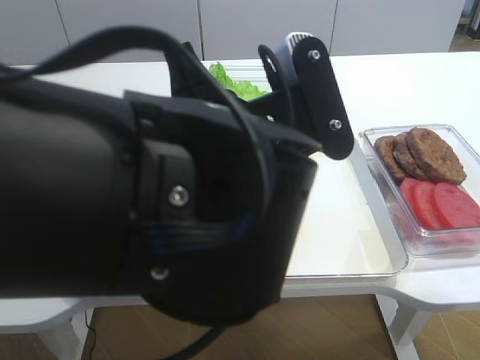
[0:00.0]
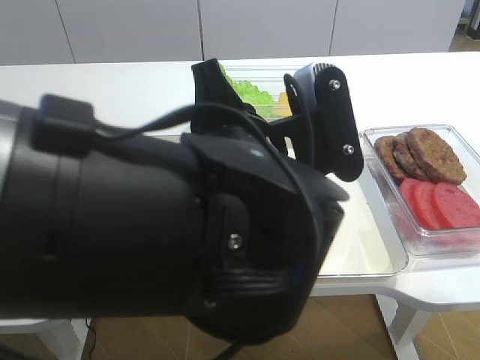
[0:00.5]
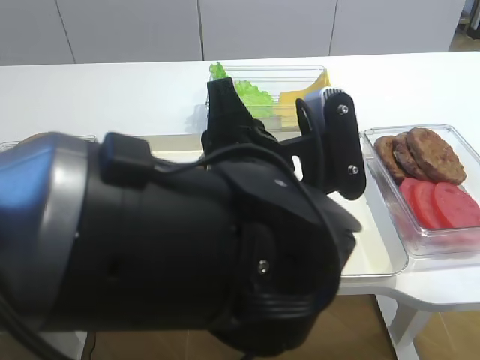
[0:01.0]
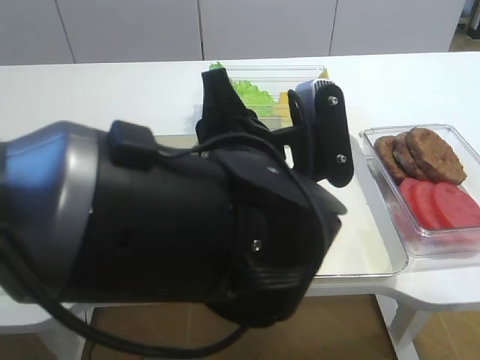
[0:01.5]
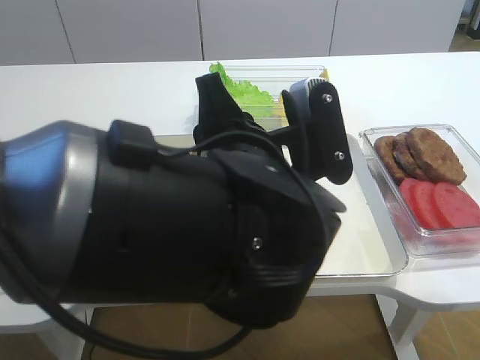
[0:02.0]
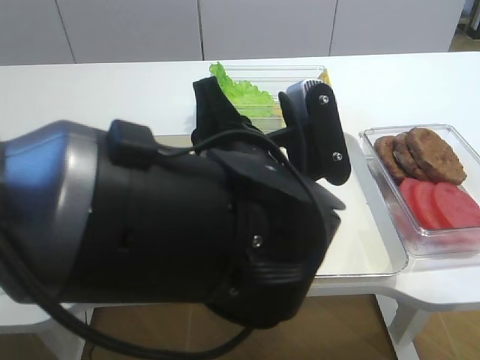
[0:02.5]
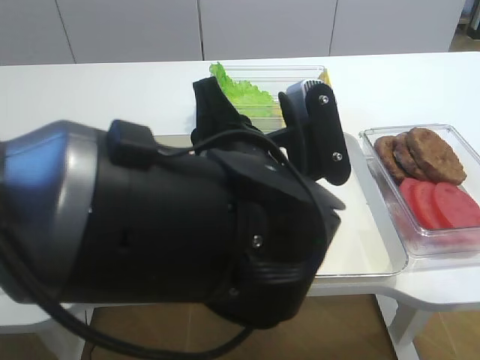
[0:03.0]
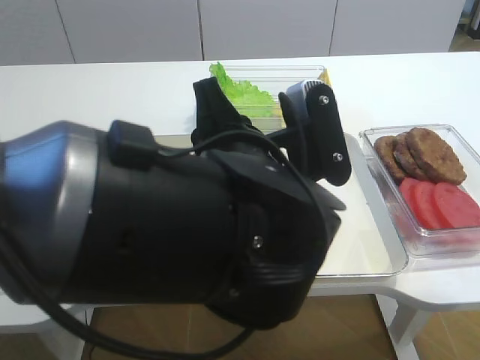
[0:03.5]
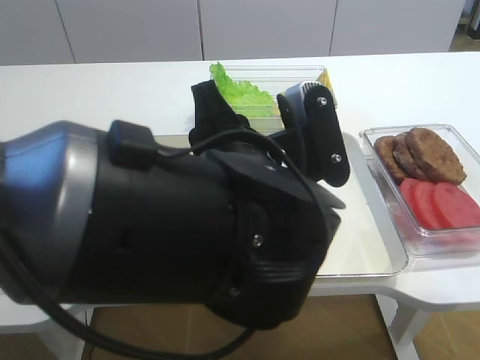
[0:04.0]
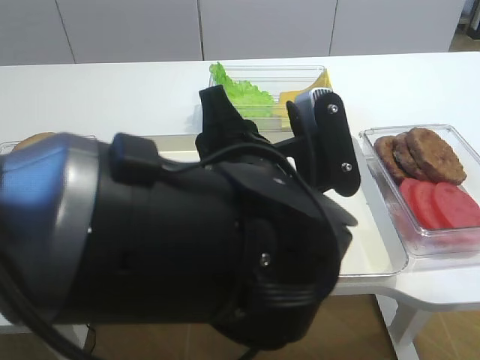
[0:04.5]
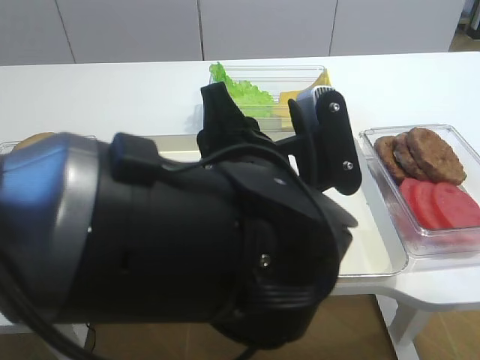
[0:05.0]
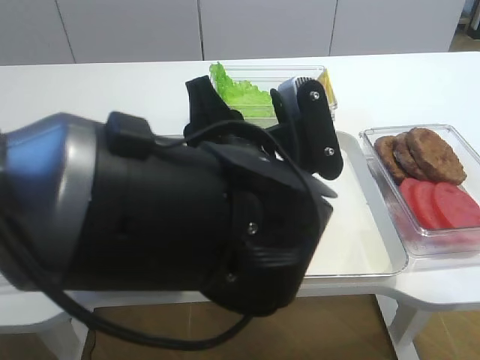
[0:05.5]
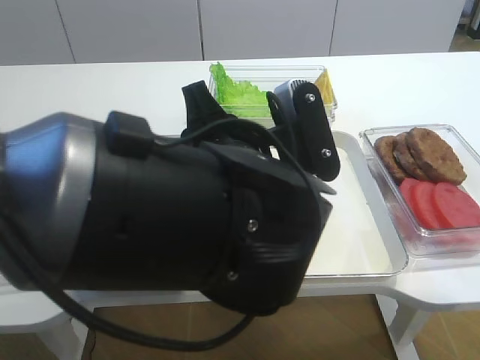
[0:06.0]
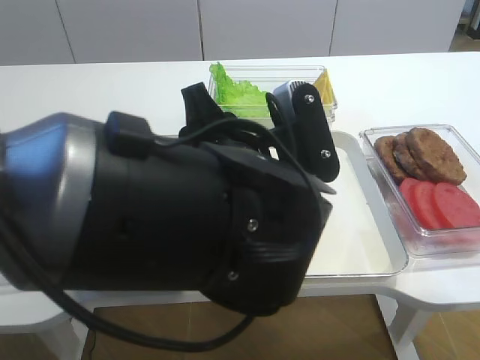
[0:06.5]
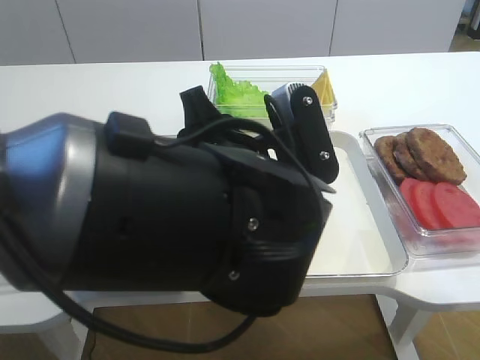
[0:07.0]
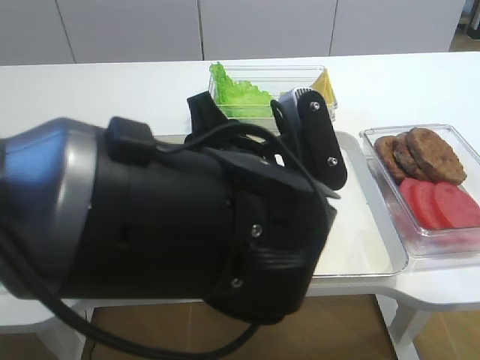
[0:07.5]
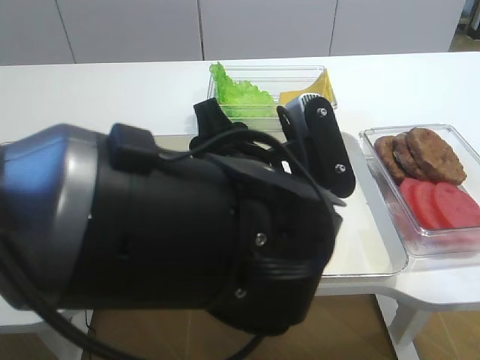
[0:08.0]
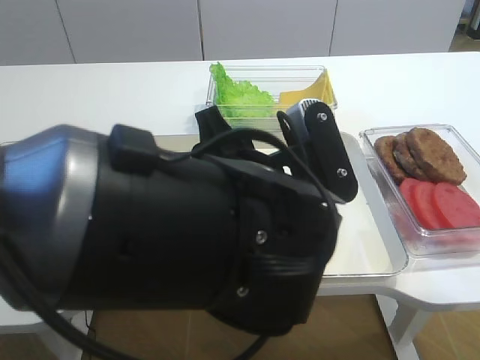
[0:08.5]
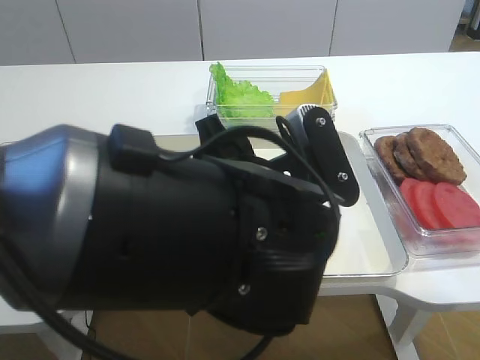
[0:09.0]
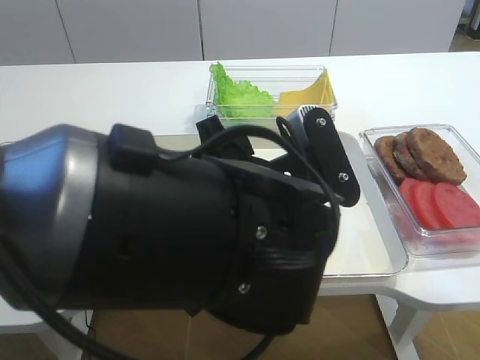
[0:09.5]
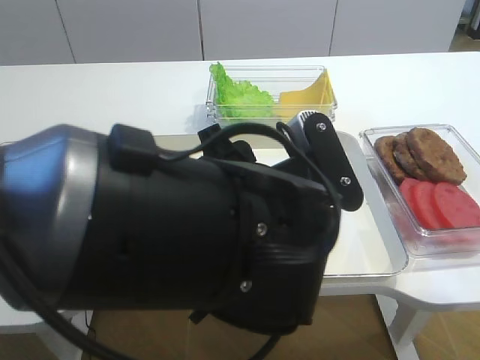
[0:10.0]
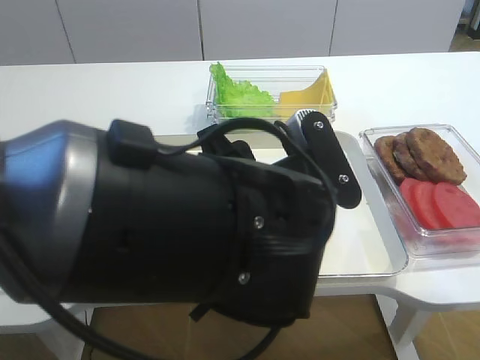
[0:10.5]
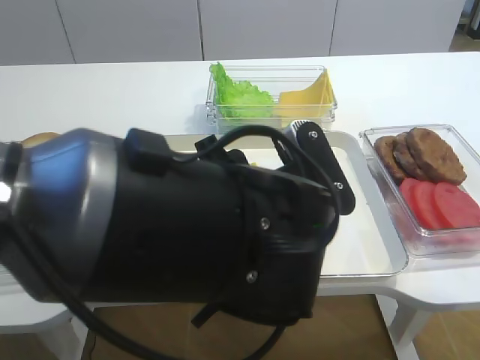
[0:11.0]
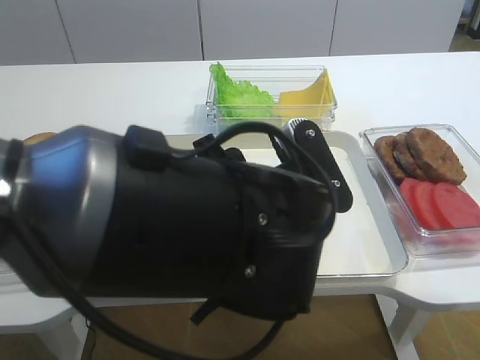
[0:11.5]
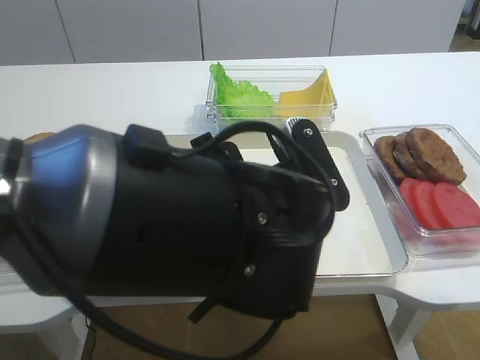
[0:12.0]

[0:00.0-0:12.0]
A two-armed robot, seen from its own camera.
0:02.0 to 0:06.0: Both grippers stay put.
0:06.0 to 0:08.0: The two grippers keep their place.
0:08.0 to 0:10.0: The grippers stay close to where they were, moving slightly.
0:10.0 to 0:12.0: The two grippers keep their place.

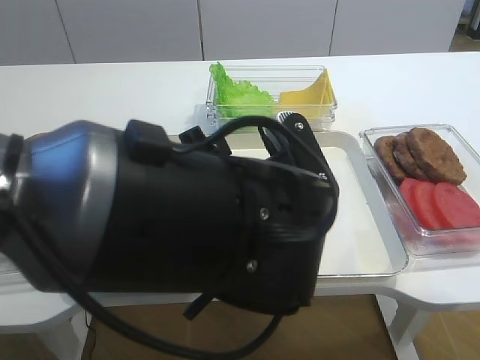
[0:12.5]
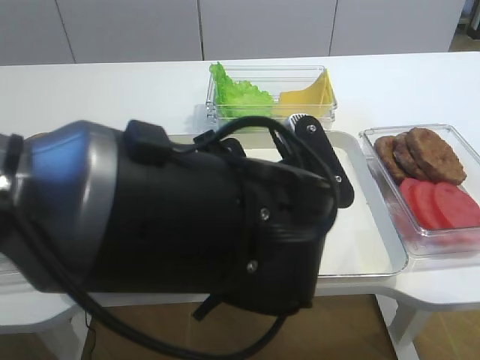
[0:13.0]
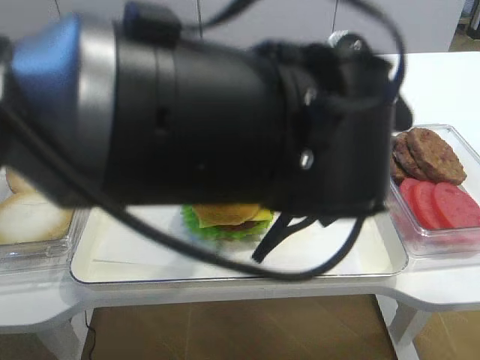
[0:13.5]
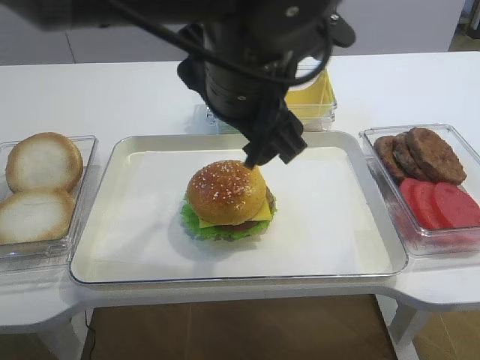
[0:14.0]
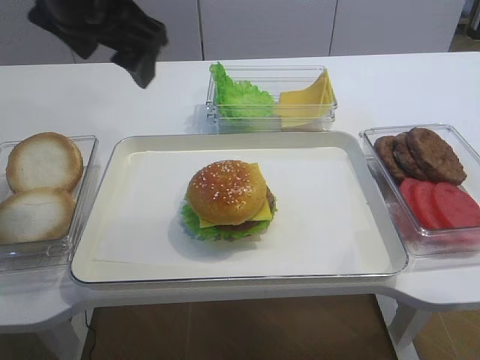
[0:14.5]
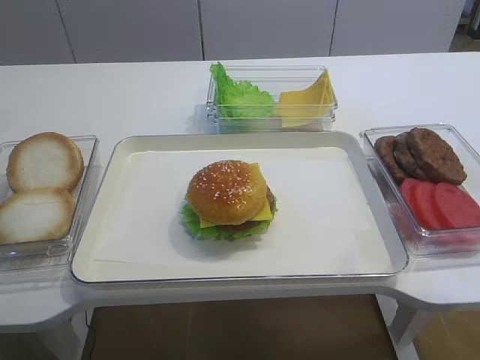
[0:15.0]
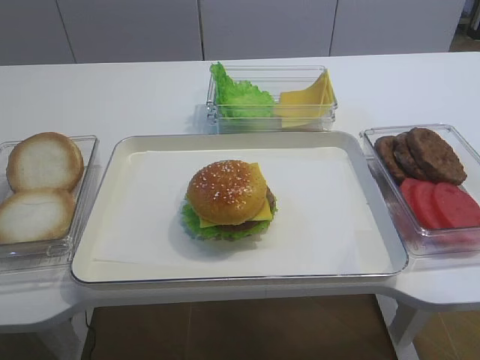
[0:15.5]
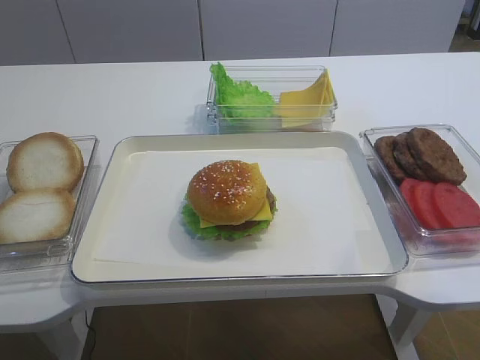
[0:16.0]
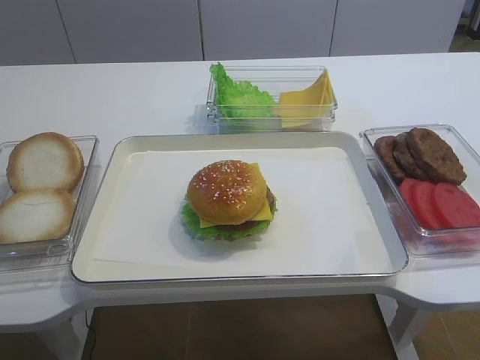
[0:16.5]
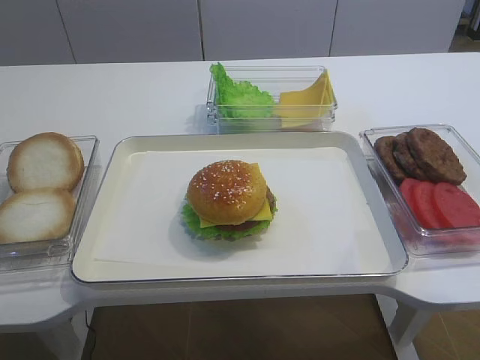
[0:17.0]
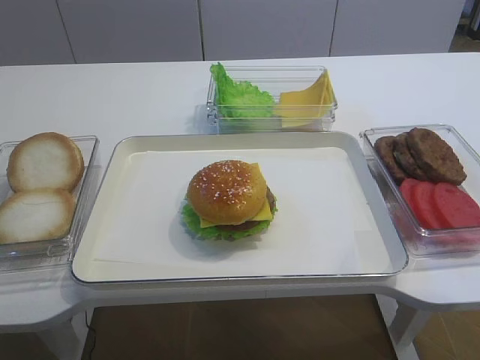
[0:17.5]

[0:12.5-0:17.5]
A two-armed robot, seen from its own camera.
0:12.5 to 0:15.0: The left gripper goes approximately 35 cm to the left and upward.

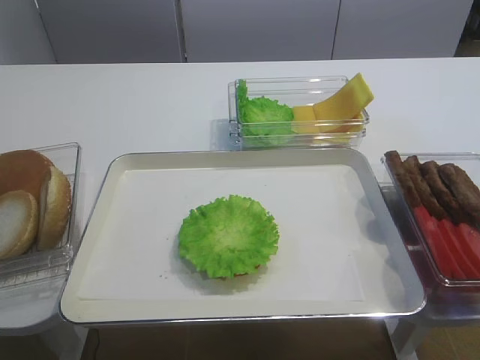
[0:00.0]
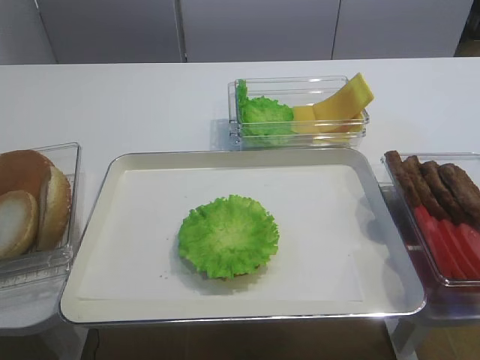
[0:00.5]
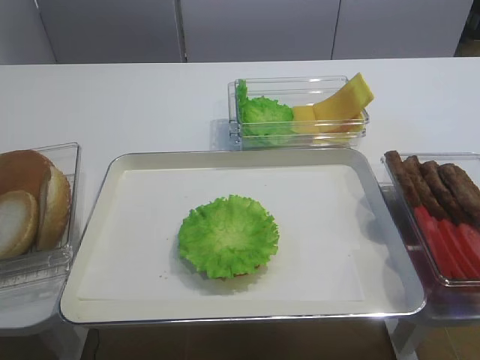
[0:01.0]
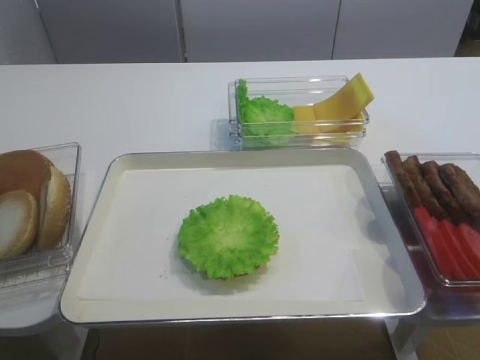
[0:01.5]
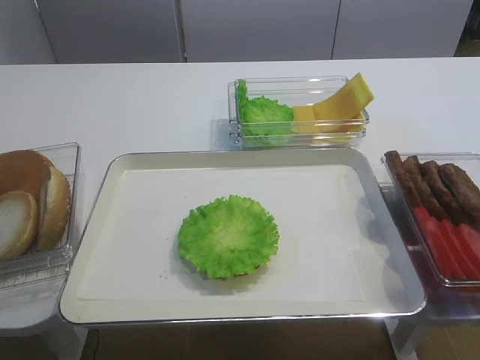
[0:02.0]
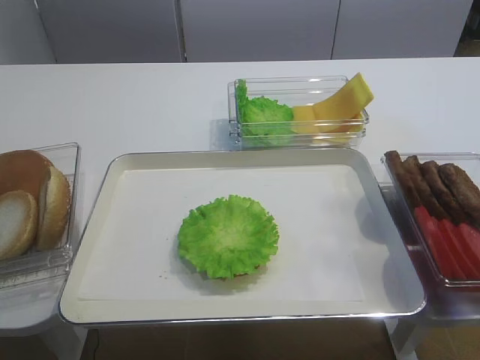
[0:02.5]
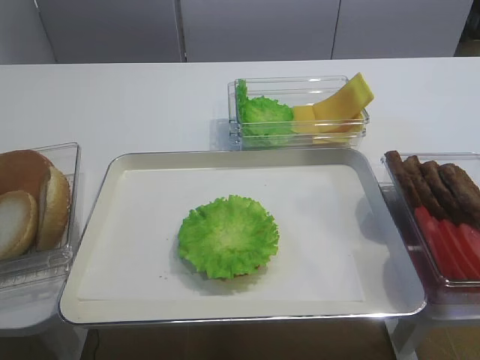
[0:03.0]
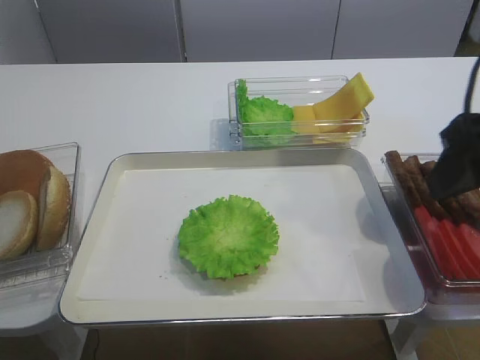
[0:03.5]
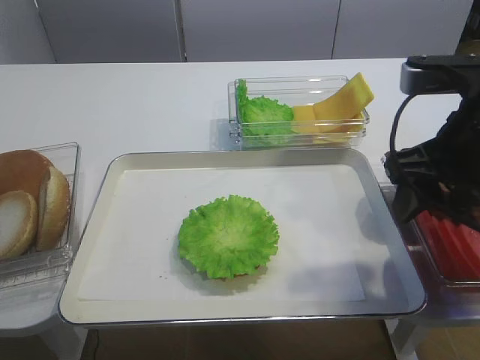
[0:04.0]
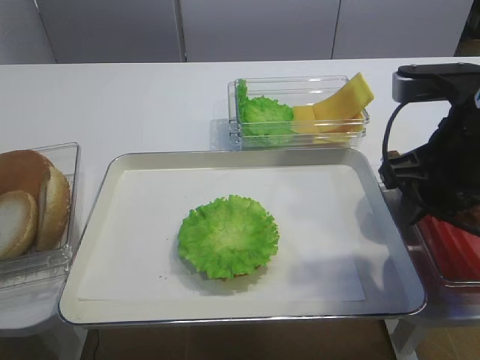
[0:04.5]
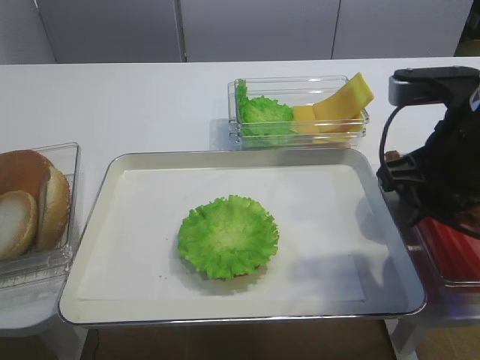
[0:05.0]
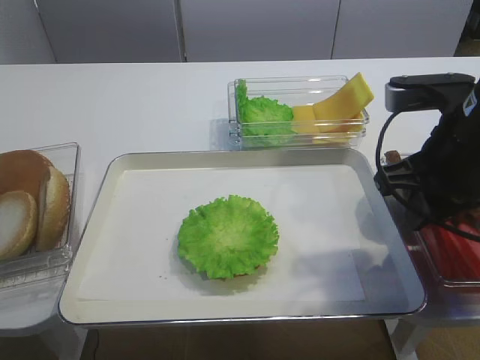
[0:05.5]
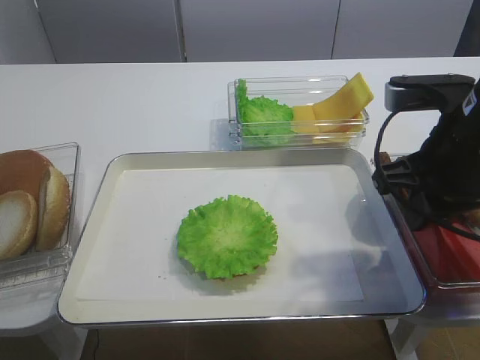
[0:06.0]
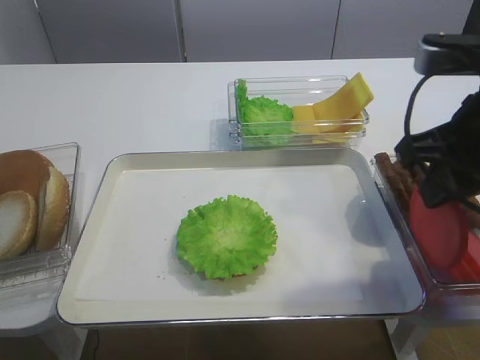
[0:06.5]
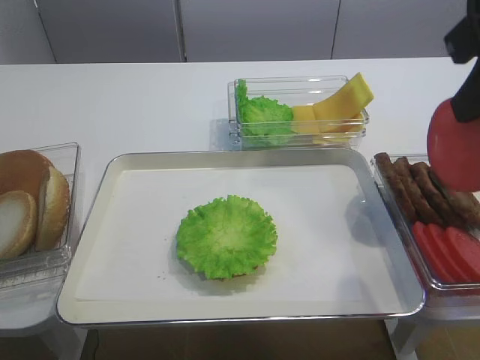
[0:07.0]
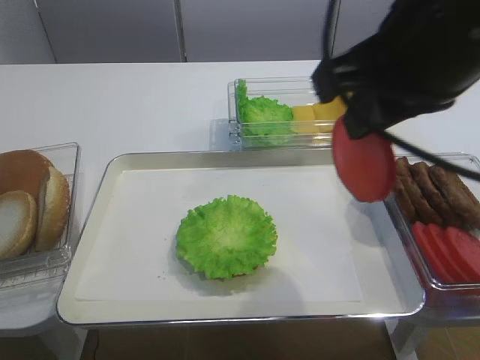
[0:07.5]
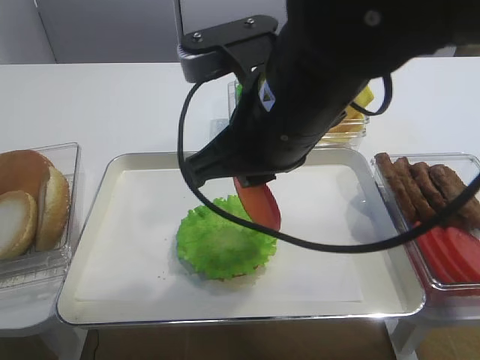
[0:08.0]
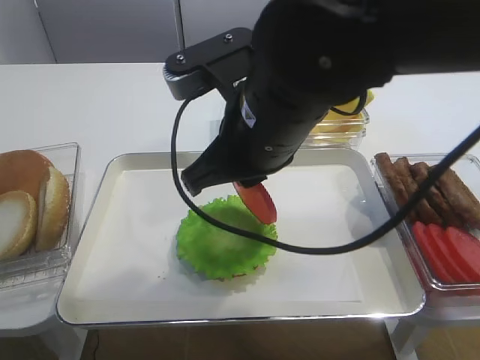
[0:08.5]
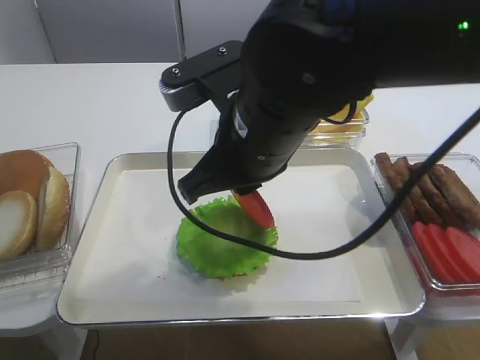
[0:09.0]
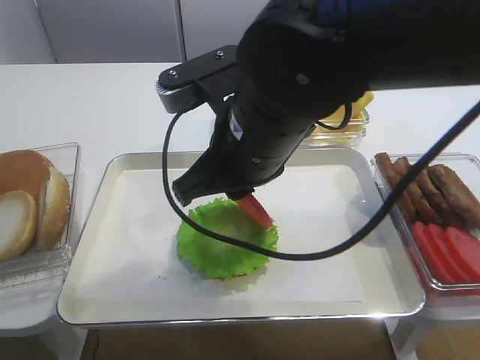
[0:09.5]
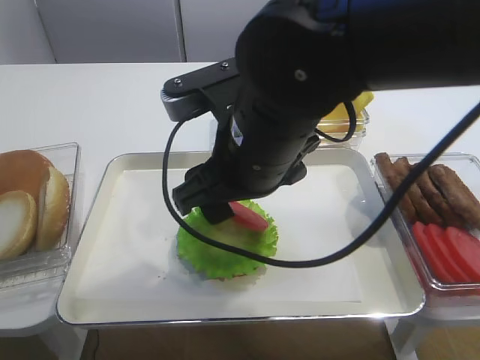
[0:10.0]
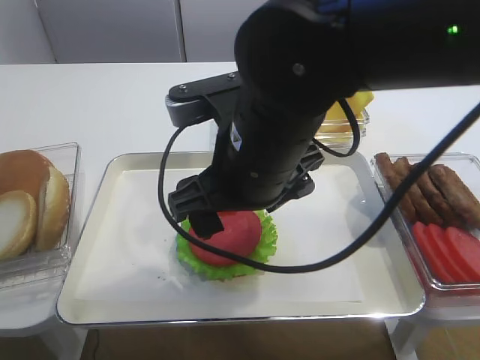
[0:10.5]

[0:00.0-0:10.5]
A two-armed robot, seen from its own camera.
Step, 0:00.0 to 0:06.5: Pick up the tomato slice with the right gripper.
Step, 0:07.0 to 0:10.0: Place the tomato slice on the lettuce leaf with the right gripper.
0:02.0 to 0:04.0: The right gripper shifts roughly 25 cm forward.
0:04.0 to 0:06.5: The right gripper closes.
0:06.5 to 0:08.5: The right gripper moves to the left, approximately 15 cm.
0:08.5 to 0:10.5: The right gripper opens up.
